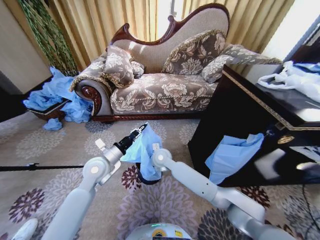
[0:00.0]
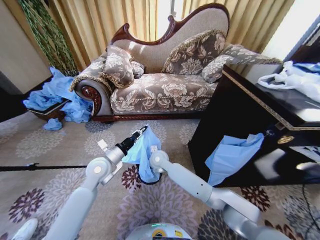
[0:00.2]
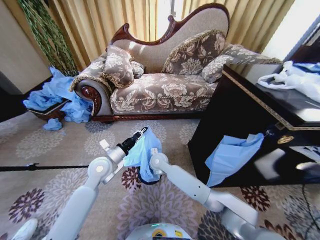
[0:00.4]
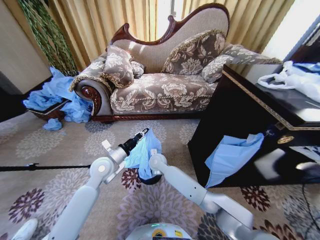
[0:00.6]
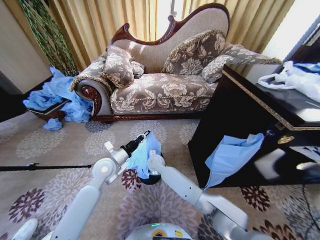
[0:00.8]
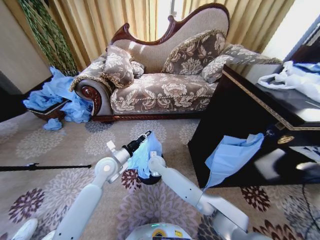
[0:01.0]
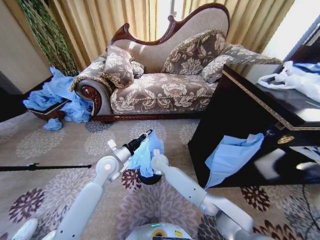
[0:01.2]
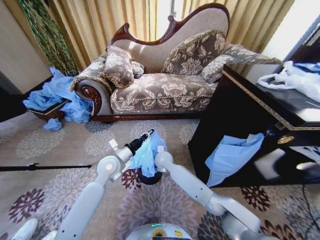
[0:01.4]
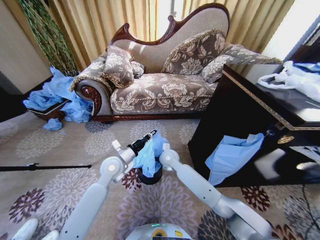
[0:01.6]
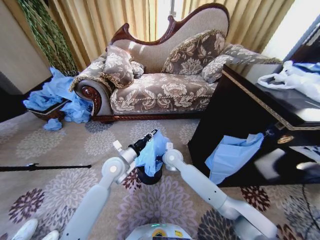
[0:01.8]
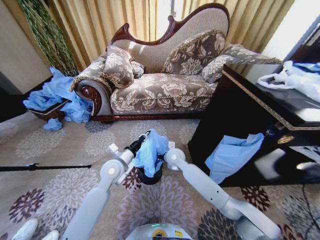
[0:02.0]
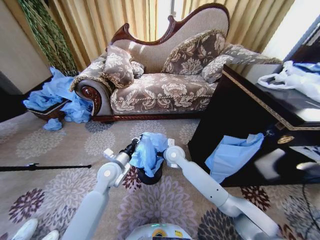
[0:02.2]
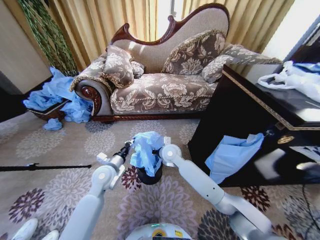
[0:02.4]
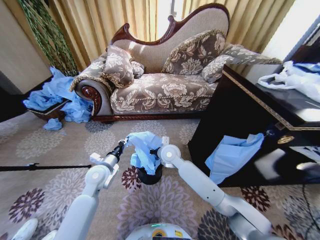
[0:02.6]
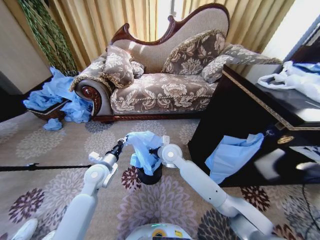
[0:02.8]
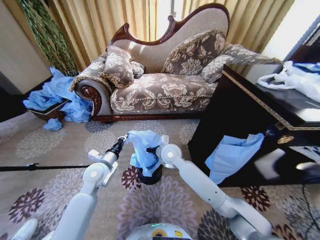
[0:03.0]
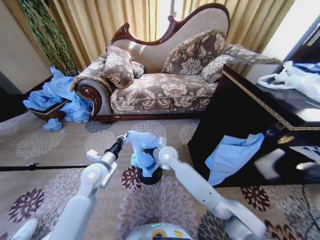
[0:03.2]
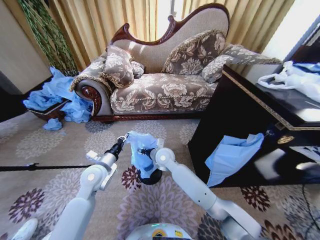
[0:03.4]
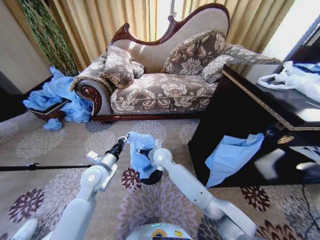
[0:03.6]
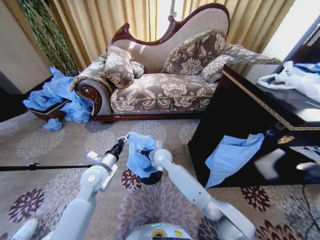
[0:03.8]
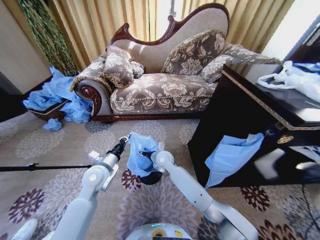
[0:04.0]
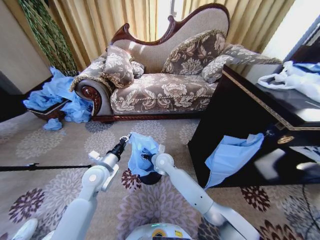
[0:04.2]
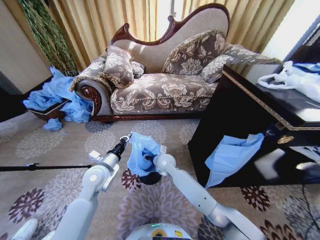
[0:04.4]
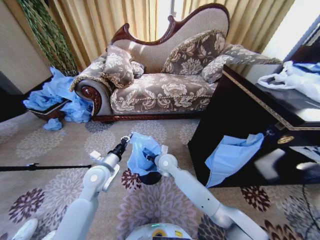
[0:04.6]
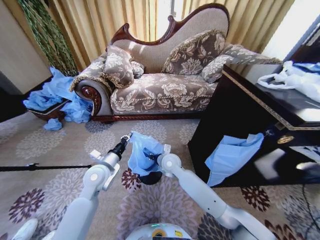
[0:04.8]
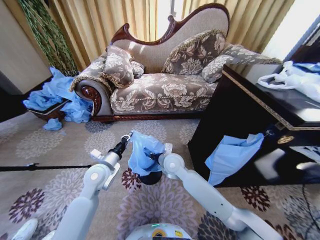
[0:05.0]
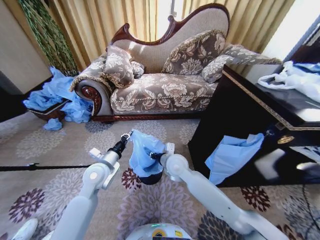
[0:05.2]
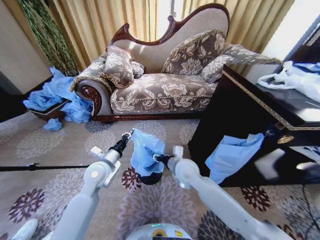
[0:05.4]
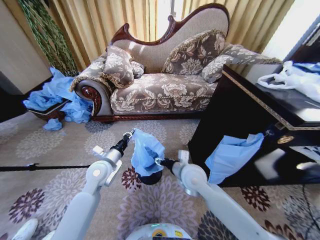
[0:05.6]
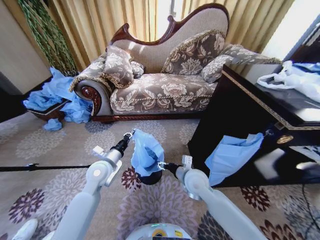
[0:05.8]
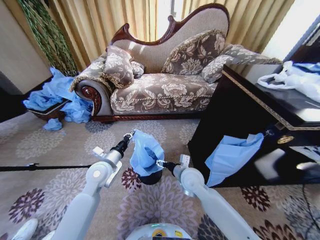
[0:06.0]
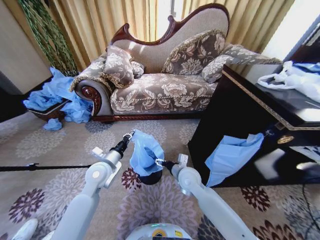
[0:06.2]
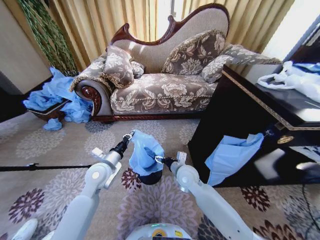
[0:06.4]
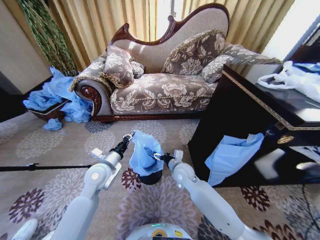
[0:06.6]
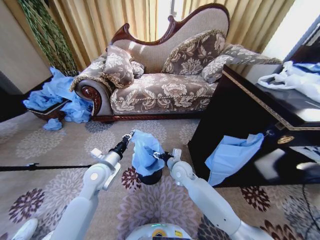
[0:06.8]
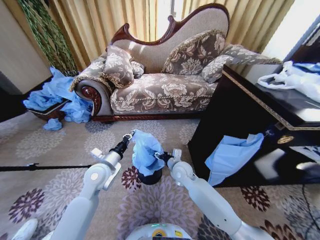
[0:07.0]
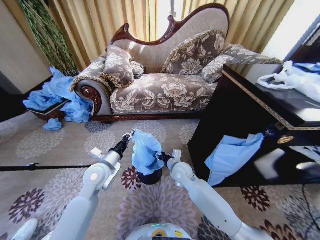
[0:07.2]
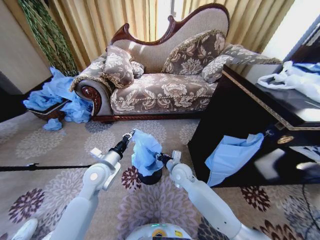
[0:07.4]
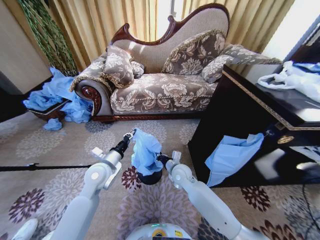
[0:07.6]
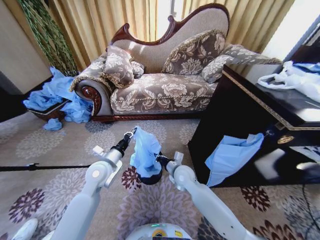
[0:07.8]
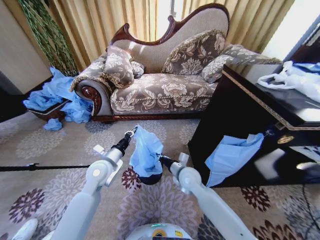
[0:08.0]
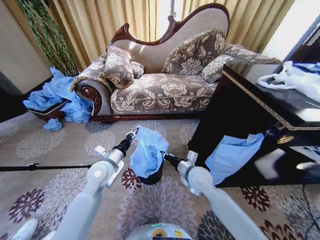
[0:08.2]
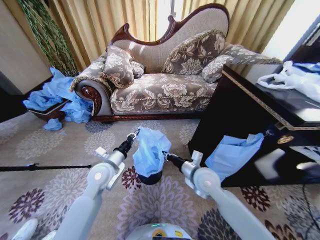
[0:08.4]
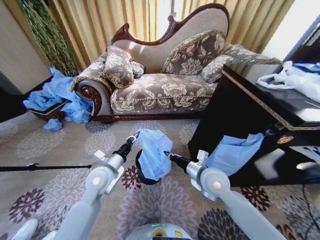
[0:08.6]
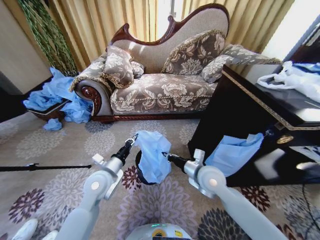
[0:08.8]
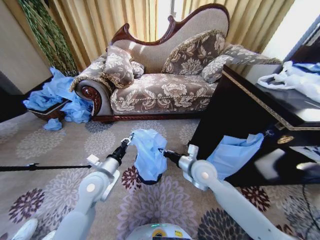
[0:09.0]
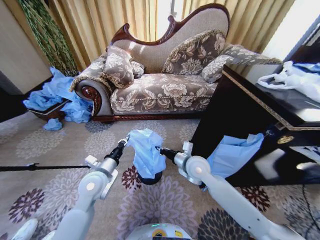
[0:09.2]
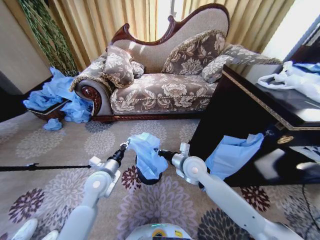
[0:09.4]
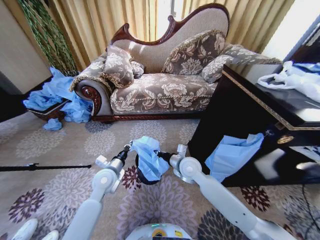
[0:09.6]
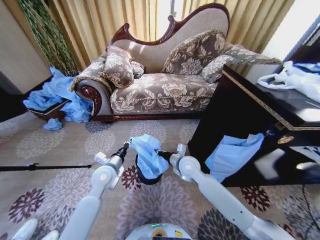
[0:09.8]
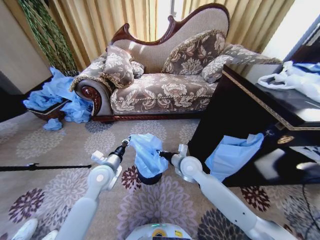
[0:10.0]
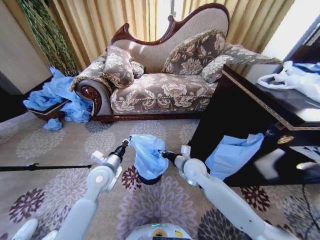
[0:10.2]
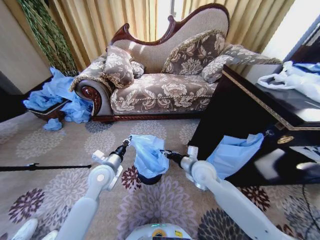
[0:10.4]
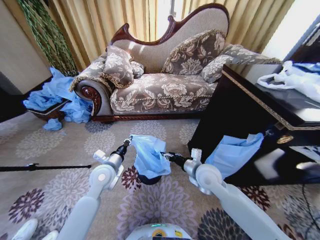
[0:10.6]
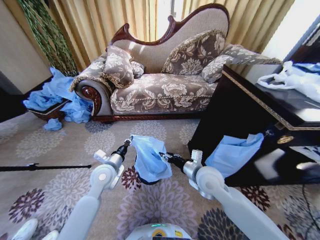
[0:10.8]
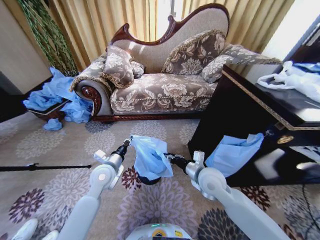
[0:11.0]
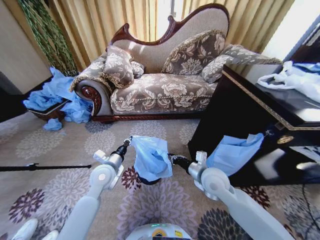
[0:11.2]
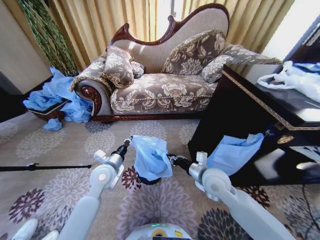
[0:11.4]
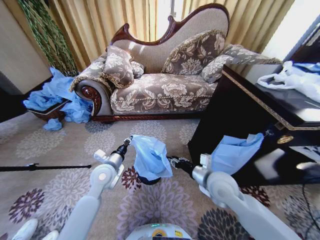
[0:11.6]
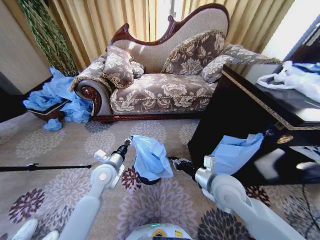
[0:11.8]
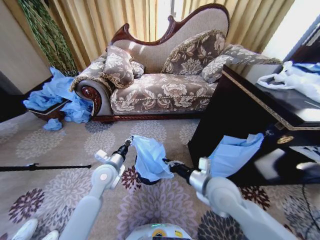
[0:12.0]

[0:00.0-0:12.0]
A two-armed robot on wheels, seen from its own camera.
Task of the whole recording: Place a garbage bag over the trash bin.
0:00.0 to 0:01.6: The left gripper moves approximately 5 cm.
0:01.6 to 0:03.0: The left gripper shifts approximately 5 cm to the left. The right gripper travels upward by about 5 cm, and opens up.
0:03.0 to 0:04.4: The right gripper moves downward, roughly 10 cm, and opens and closes again.
0:04.4 to 0:06.0: The right gripper is displaced to the right and backward by some 15 cm, and opens.
0:06.0 to 0:07.6: The right gripper changes place by about 5 cm, and closes its fingers.
0:07.6 to 0:09.0: The right gripper shifts about 10 cm upward and to the right.
0:09.0 to 0:10.4: The right gripper opens.
0:10.4 to 0:12.0: The right gripper moves backward, about 10 cm, and closes its fingers.

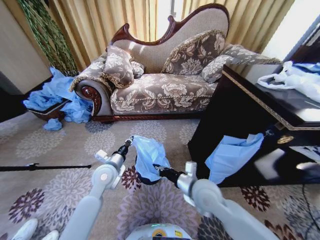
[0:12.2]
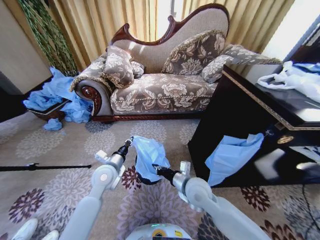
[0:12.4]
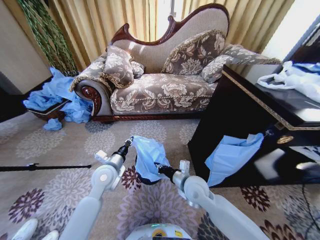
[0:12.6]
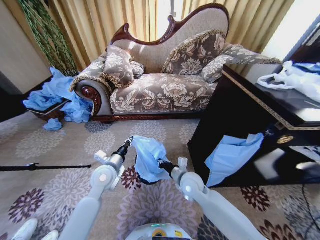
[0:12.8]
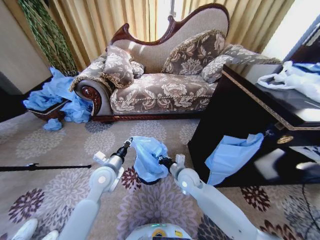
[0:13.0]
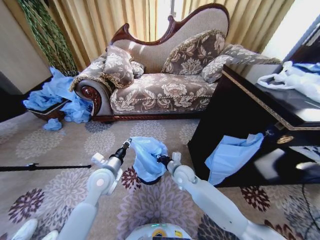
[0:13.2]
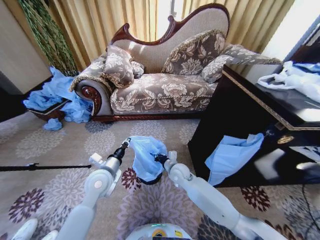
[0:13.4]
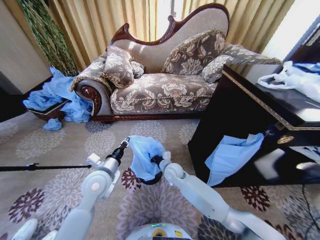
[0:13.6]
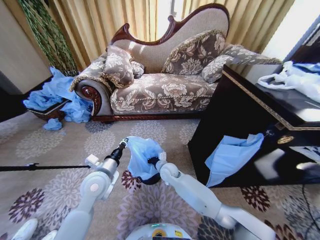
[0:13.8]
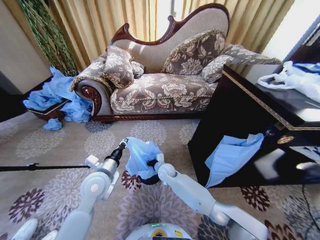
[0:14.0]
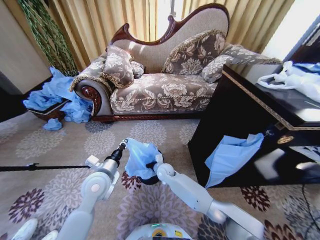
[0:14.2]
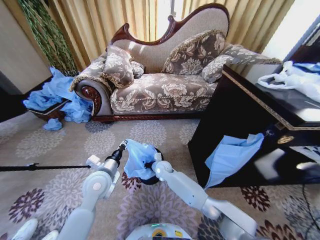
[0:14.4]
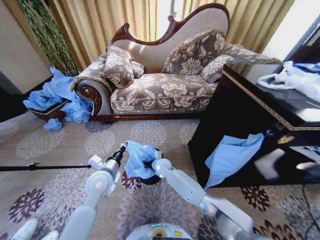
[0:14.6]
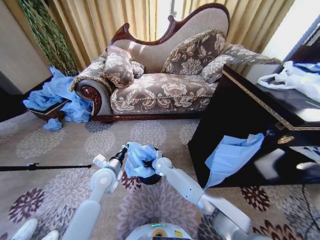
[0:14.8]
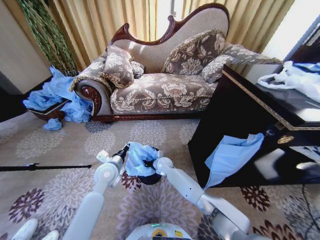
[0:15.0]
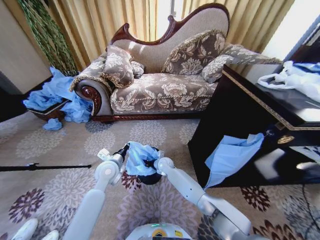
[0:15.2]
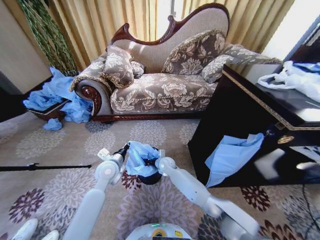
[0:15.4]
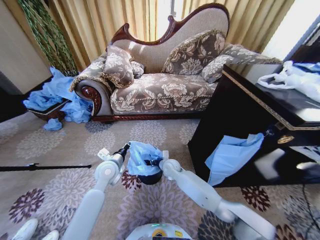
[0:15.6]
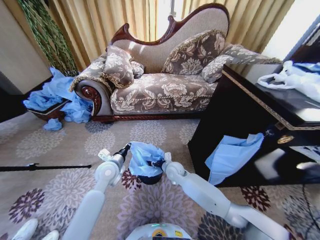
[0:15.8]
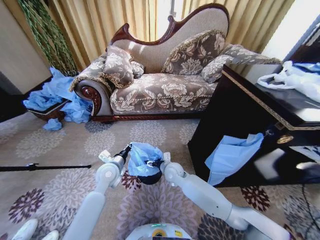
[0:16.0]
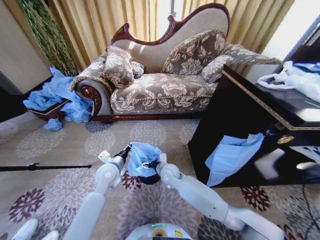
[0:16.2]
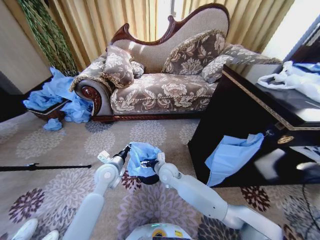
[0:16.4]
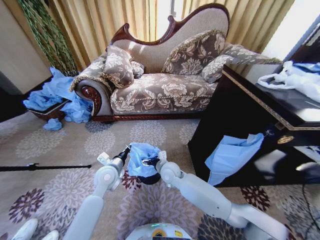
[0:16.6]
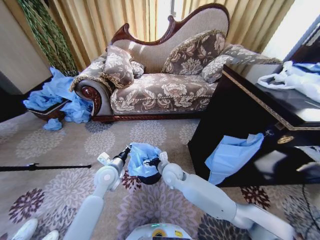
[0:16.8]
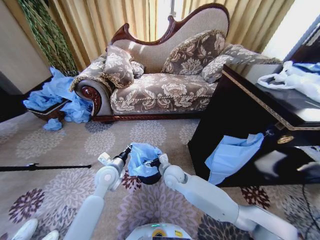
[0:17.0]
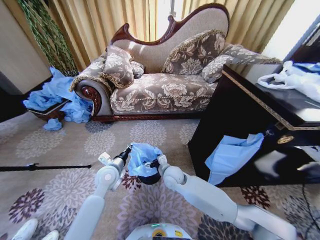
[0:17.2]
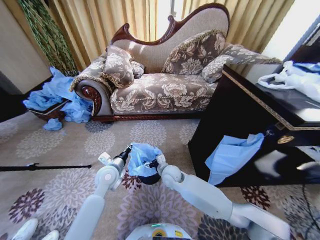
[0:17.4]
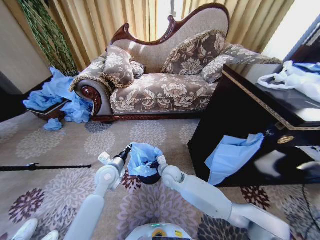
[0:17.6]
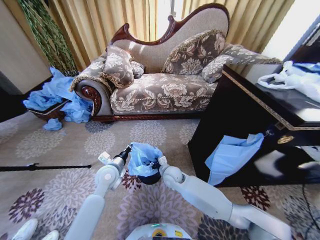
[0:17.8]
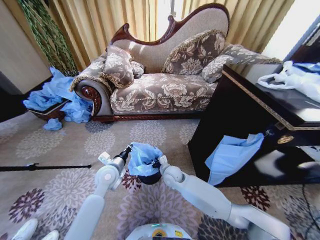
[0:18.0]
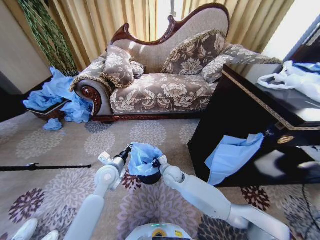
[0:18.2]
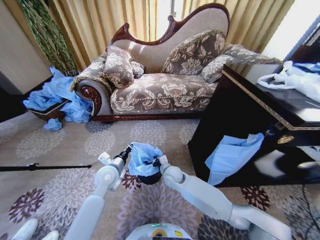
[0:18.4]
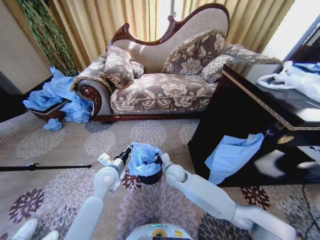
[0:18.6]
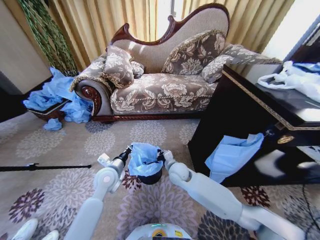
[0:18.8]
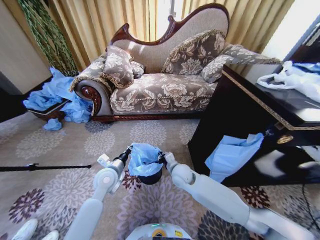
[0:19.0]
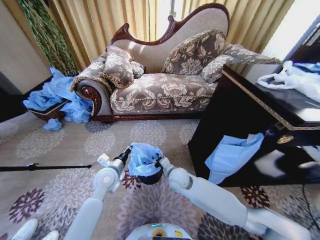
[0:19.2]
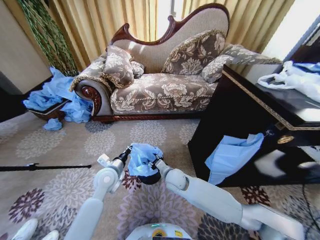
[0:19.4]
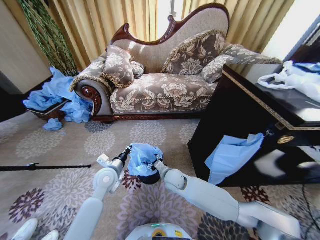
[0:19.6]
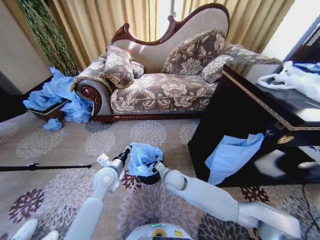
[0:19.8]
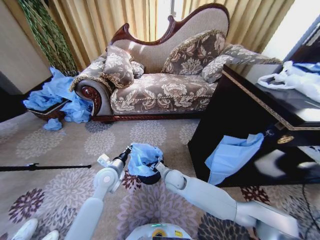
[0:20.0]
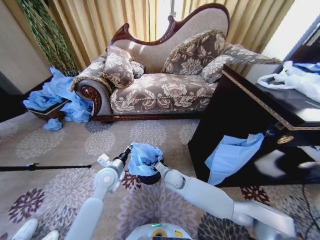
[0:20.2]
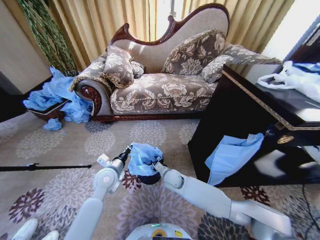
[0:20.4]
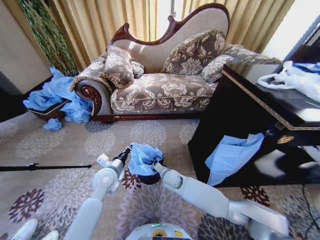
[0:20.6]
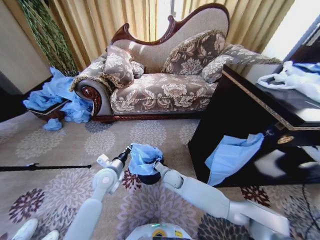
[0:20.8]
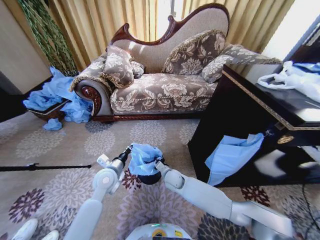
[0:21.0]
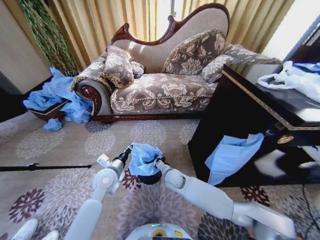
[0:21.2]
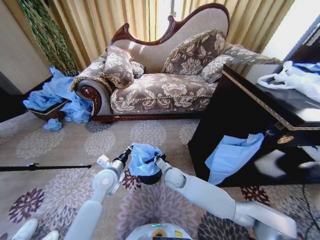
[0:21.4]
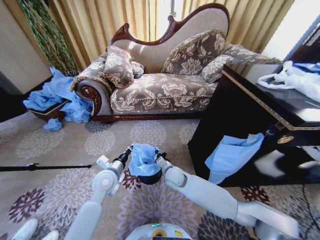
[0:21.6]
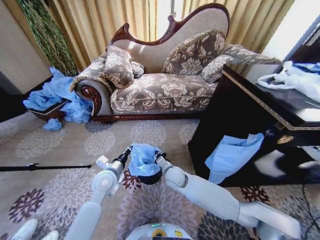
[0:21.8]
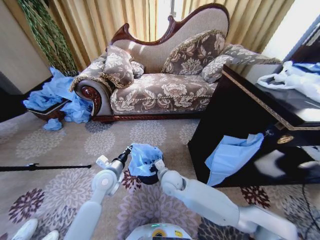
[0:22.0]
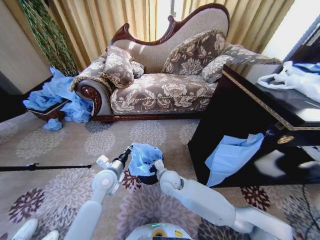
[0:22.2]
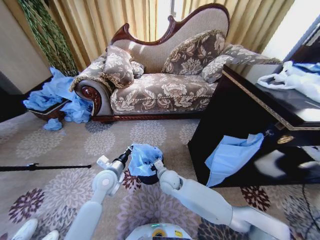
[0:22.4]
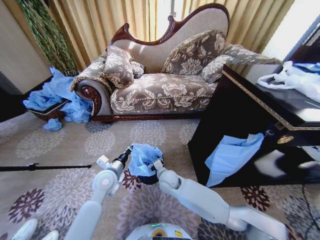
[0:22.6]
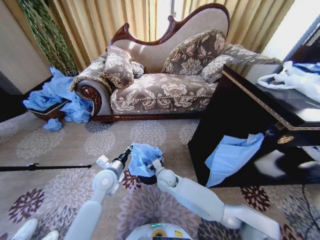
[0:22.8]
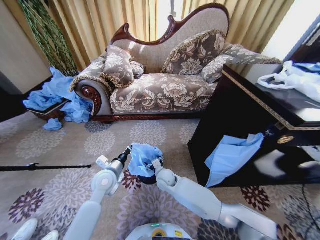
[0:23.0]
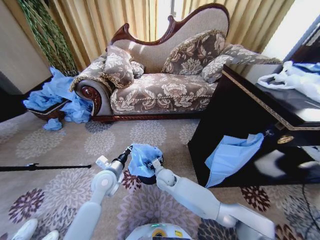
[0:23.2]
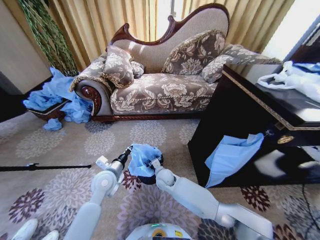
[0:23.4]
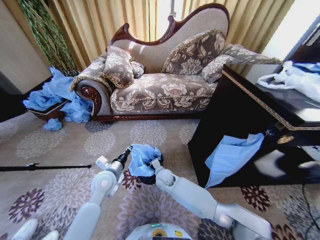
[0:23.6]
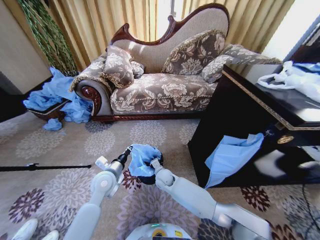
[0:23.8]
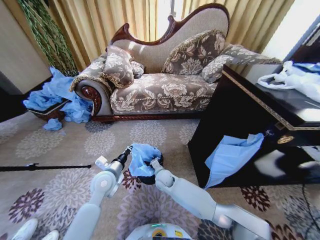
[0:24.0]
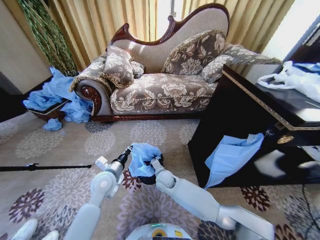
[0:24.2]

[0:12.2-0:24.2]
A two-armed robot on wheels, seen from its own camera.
Task of the whole recording: Place a garbage bag over the trash bin.
0:12.2 to 0:13.8: The right gripper heads forward, downward and to the left, covering approximately 25 cm.
0:13.8 to 0:15.2: Both grippers move forward, some 5 cm.
0:15.2 to 0:16.6: The right gripper travels upward and backward by approximately 15 cm, and opens its fingers.
0:16.6 to 0:18.2: The right gripper moves downward, about 5 cm, and closes its fingers.
0:18.2 to 0:19.8: The right gripper opens its fingers.
0:19.8 to 0:21.2: The right gripper closes.
0:21.2 to 0:22.6: The right gripper opens up.
0:22.6 to 0:24.2: The right gripper closes up.
